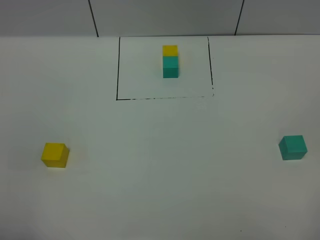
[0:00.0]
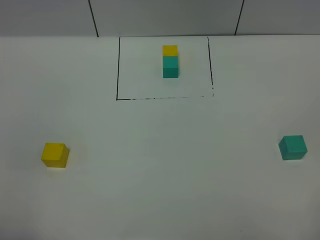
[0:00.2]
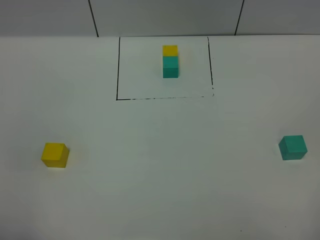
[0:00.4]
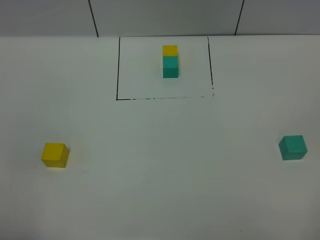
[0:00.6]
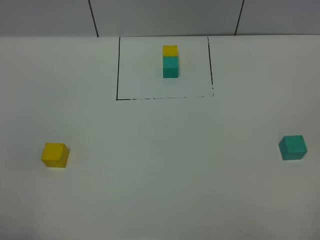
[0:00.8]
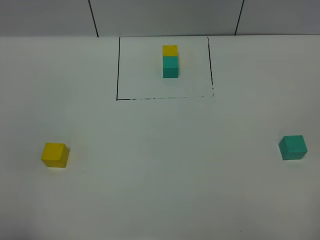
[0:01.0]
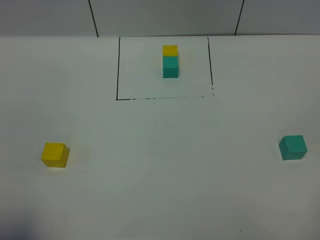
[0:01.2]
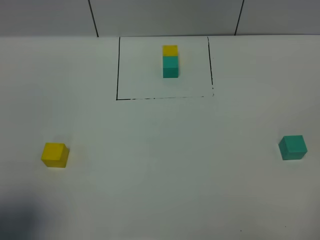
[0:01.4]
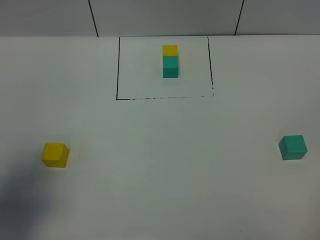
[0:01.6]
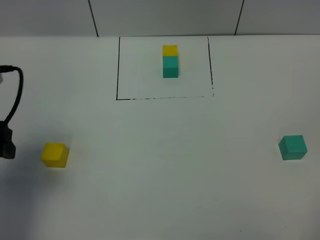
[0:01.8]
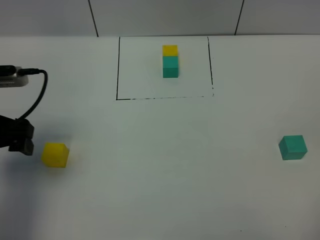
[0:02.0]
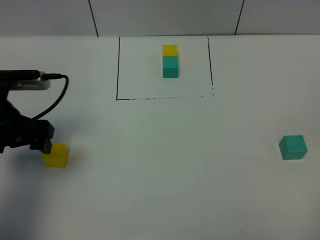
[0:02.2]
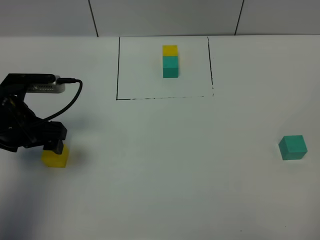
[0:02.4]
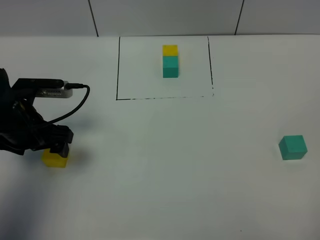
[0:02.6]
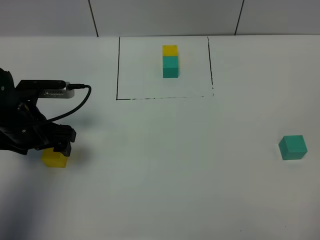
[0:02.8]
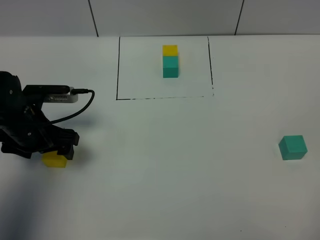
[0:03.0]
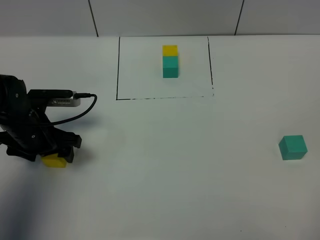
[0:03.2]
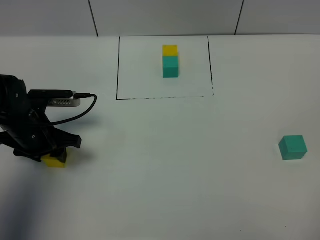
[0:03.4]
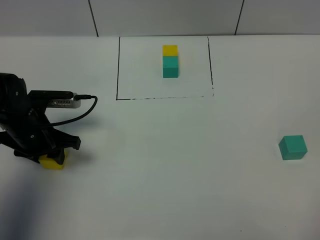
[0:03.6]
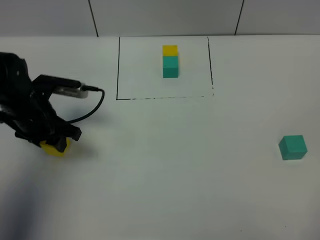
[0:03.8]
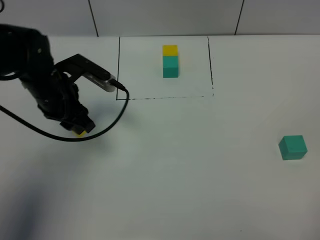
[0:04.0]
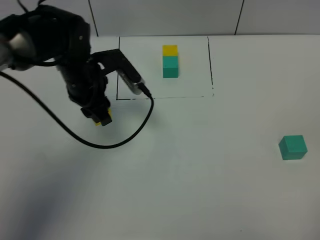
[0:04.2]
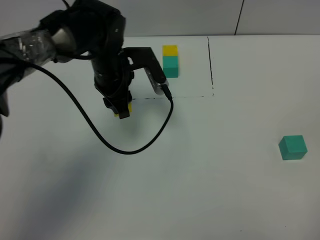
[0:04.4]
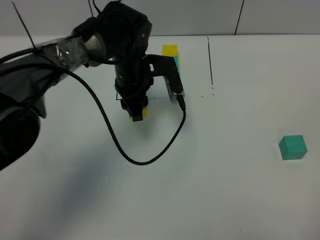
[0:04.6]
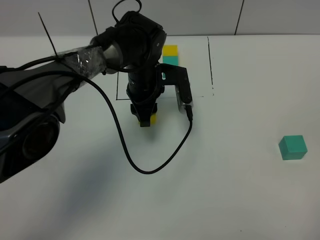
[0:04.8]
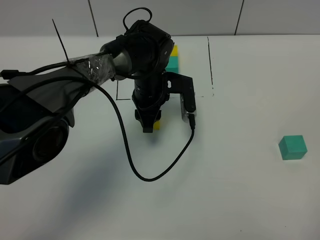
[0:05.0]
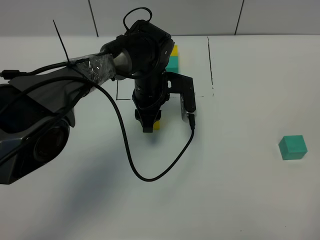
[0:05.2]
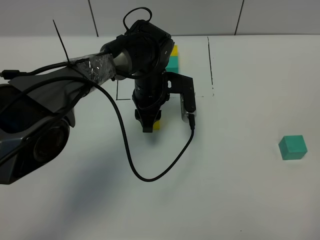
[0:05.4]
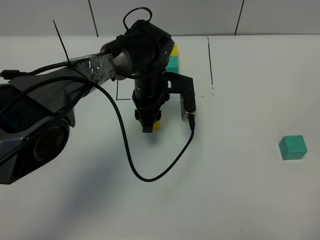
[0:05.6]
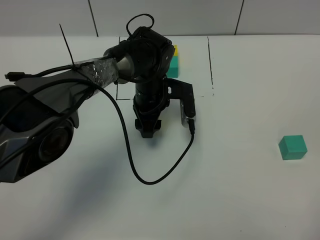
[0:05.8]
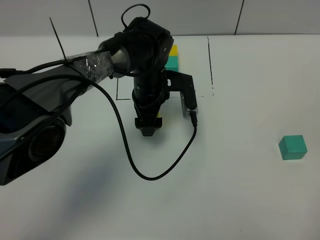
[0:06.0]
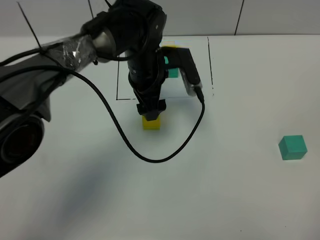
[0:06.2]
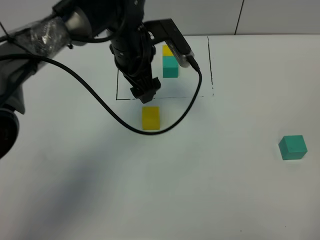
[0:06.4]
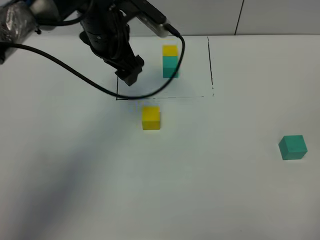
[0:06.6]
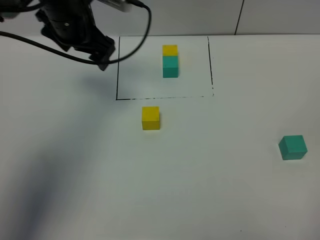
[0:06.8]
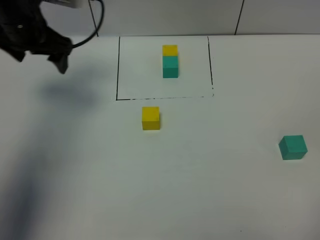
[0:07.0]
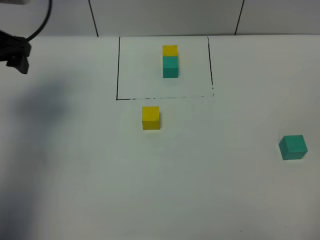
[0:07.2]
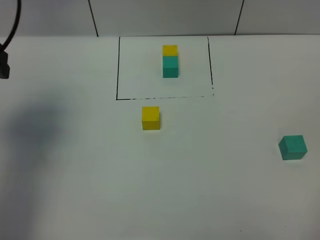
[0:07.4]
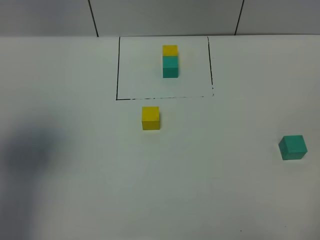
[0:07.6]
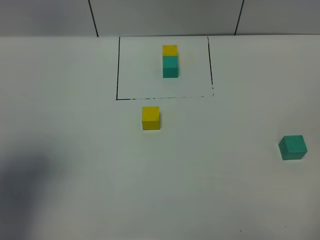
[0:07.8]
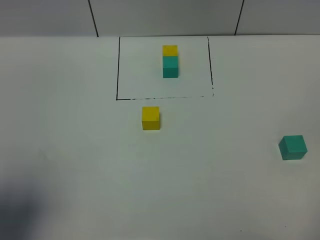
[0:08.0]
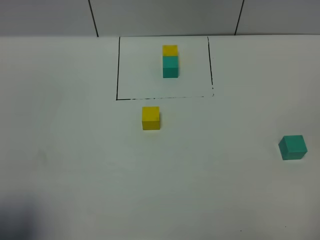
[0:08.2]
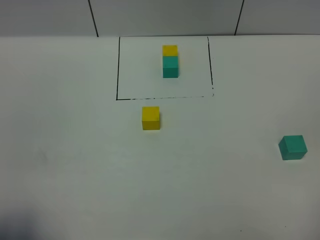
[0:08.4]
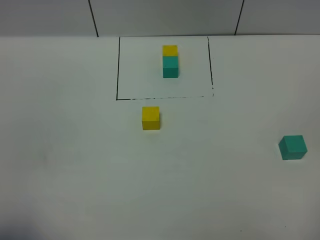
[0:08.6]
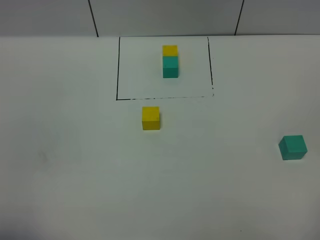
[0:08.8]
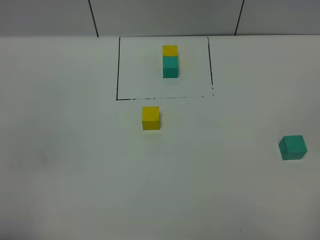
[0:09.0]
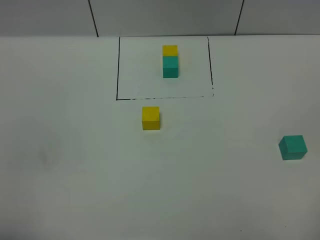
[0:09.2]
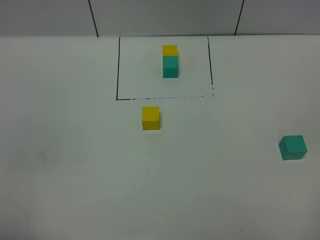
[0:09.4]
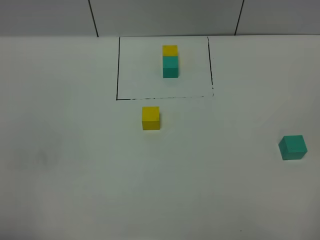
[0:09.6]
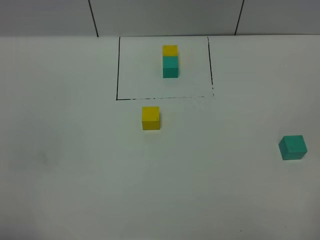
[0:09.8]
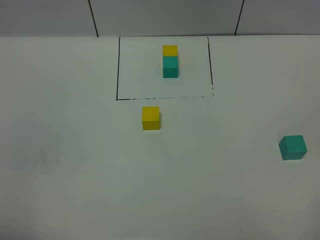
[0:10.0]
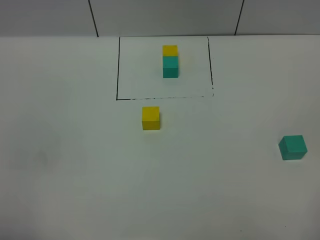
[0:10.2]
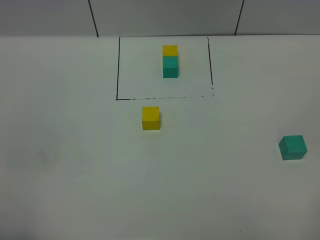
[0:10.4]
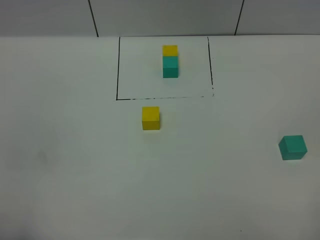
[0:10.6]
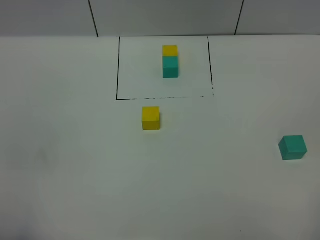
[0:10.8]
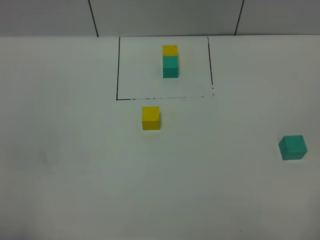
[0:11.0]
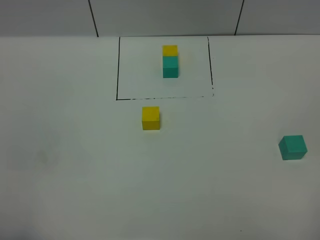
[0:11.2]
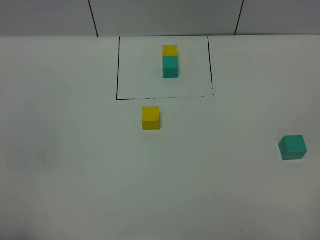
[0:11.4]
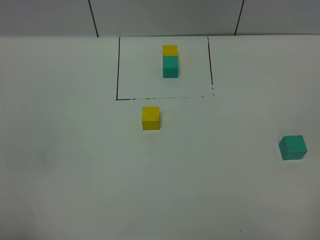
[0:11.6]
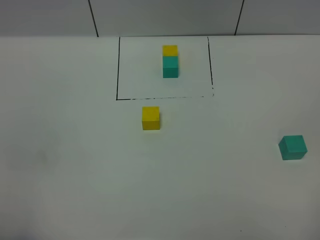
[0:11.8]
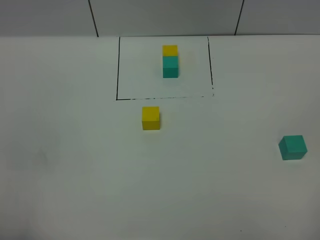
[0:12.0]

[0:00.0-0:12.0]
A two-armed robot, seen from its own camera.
Task of the whole recording: According to the building block template in front, assemble the scattered blocks together.
Step, 0:01.6 to 0:06.0: Put the yellow cube in the center of the table.
0:00.0 to 0:01.6: The left gripper goes approximately 15 cm forward.
0:01.6 to 0:03.0: The left gripper moves downward and forward, about 20 cm.
0:03.0 to 0:04.4: The left gripper heads to the right and forward, covering roughly 20 cm, and closes.
0:04.4 to 0:06.0: The left gripper goes about 5 cm to the right, and opens.
0:06.0 to 0:07.6: The left gripper shifts roughly 40 cm to the left, upward and backward.
0:07.6 to 0:09.0: The left gripper moves backward, approximately 20 cm.
0:10.4 to 0:12.0: Neither gripper changes place.

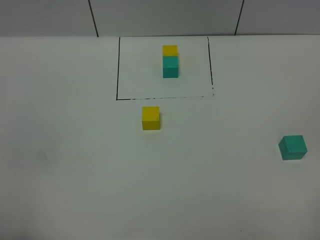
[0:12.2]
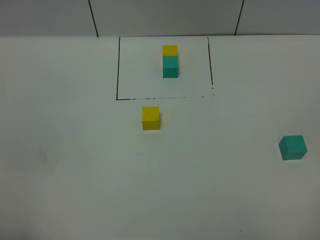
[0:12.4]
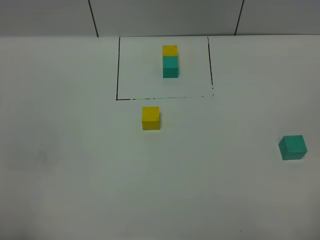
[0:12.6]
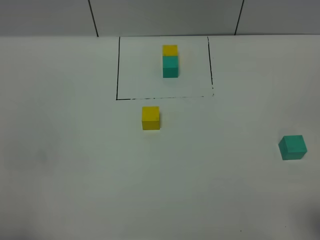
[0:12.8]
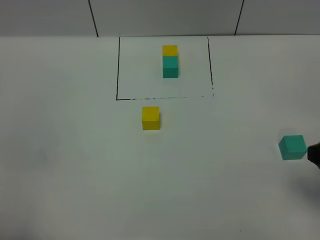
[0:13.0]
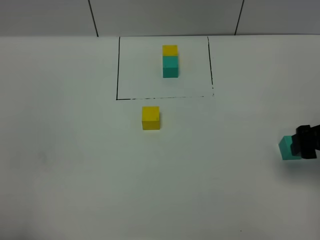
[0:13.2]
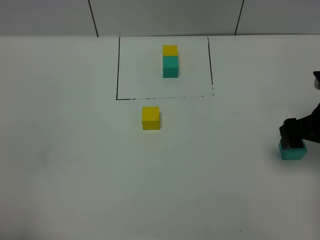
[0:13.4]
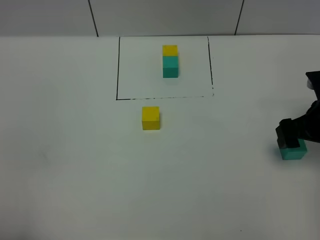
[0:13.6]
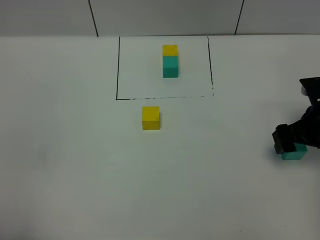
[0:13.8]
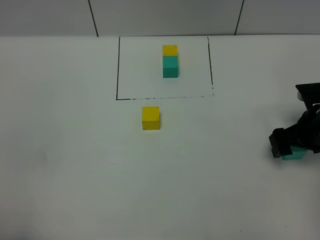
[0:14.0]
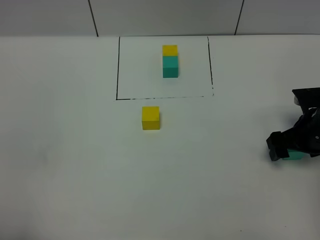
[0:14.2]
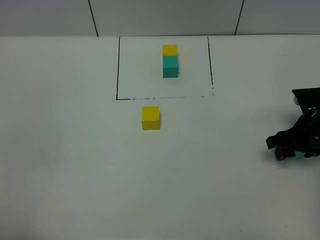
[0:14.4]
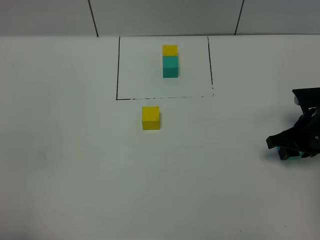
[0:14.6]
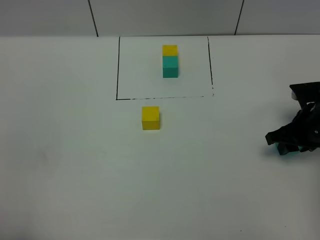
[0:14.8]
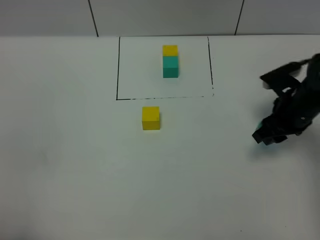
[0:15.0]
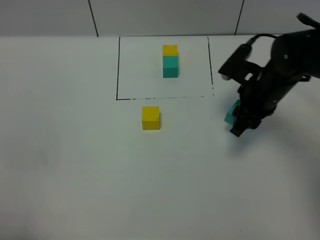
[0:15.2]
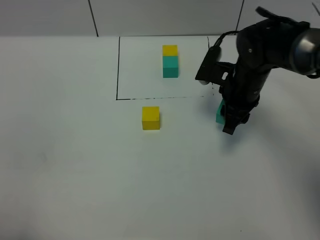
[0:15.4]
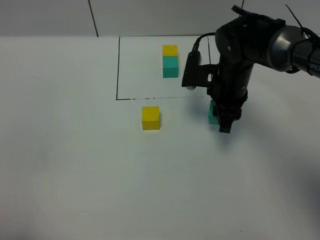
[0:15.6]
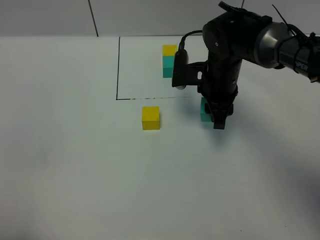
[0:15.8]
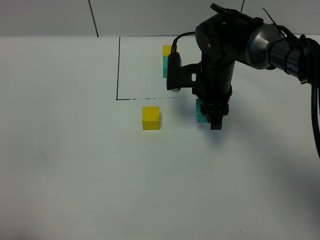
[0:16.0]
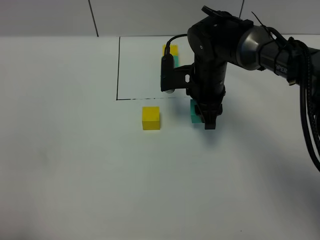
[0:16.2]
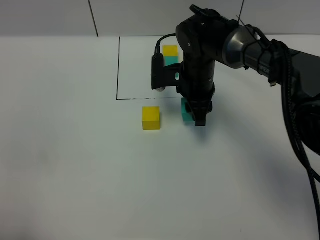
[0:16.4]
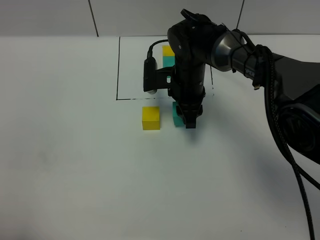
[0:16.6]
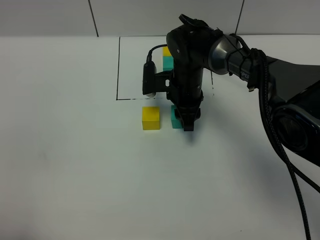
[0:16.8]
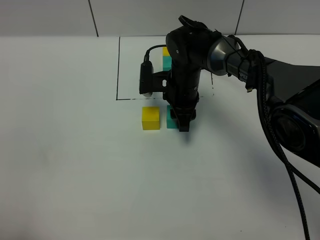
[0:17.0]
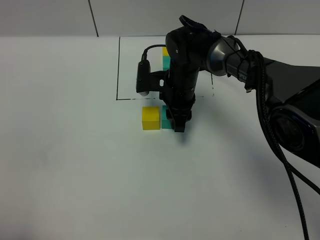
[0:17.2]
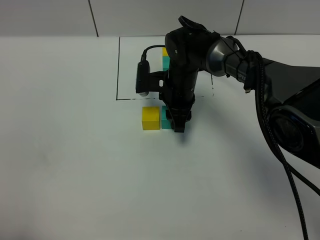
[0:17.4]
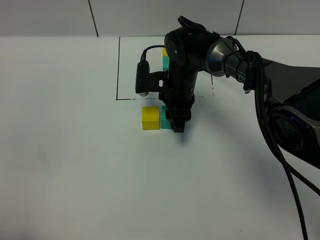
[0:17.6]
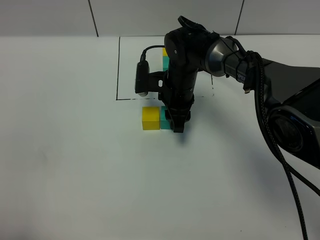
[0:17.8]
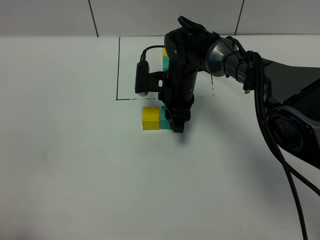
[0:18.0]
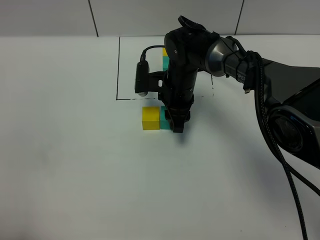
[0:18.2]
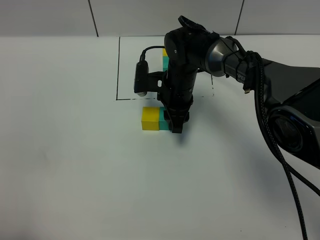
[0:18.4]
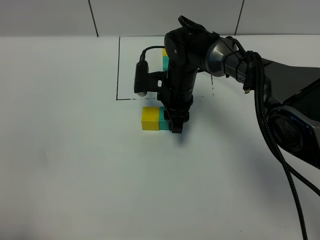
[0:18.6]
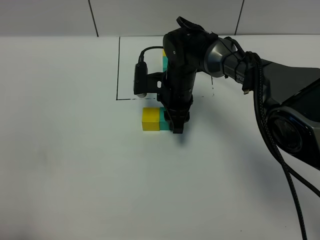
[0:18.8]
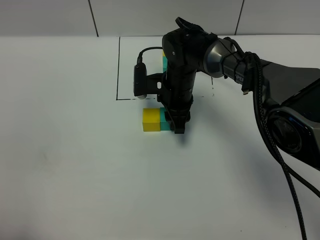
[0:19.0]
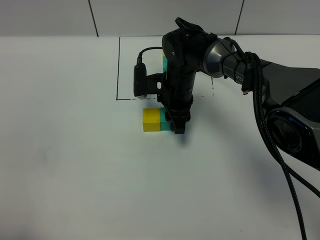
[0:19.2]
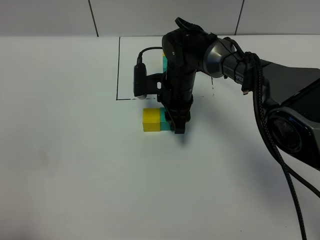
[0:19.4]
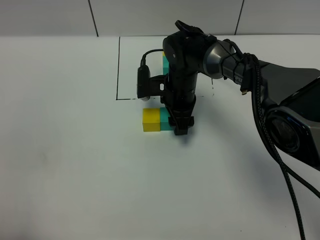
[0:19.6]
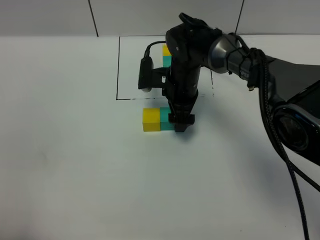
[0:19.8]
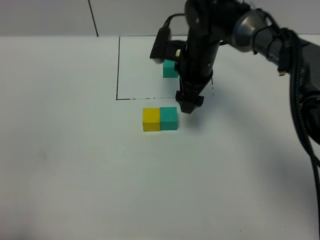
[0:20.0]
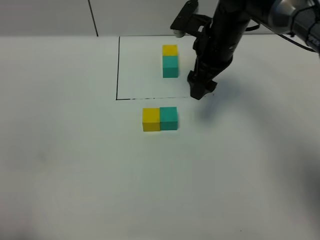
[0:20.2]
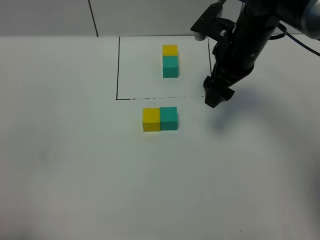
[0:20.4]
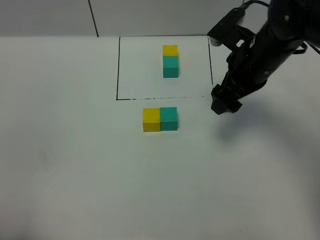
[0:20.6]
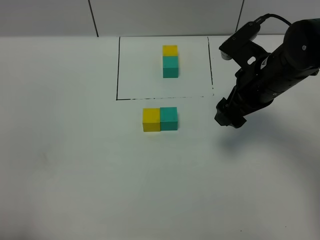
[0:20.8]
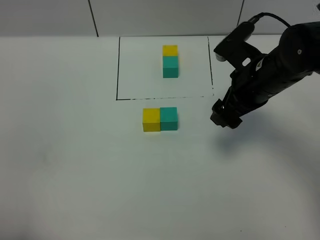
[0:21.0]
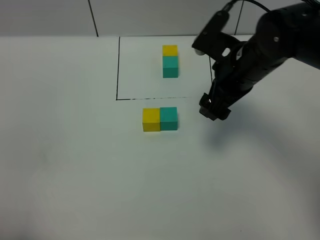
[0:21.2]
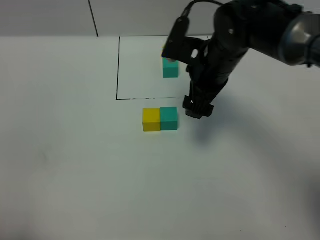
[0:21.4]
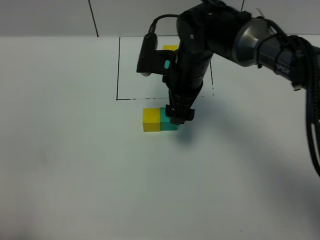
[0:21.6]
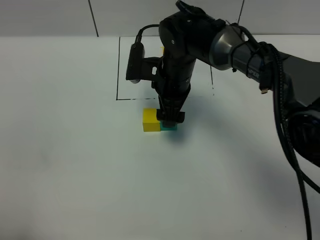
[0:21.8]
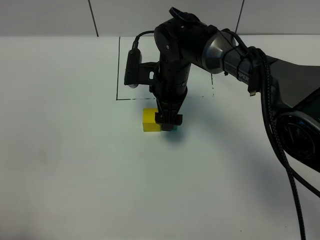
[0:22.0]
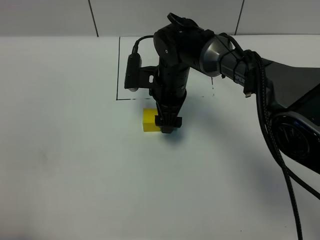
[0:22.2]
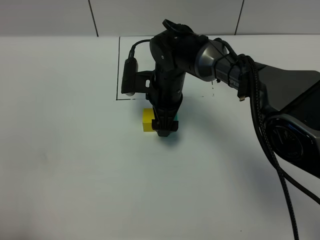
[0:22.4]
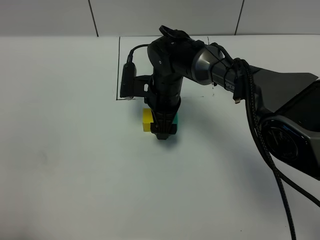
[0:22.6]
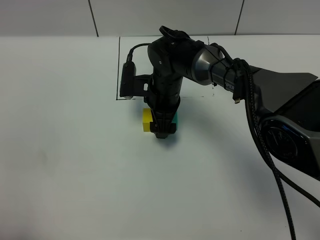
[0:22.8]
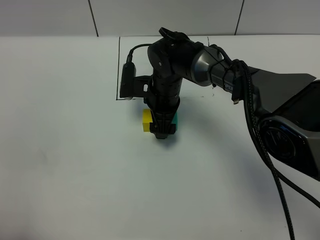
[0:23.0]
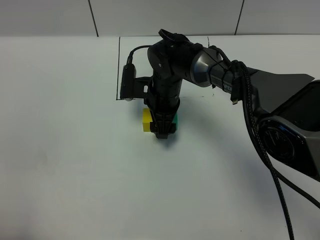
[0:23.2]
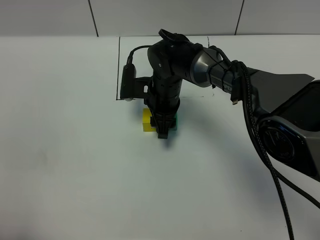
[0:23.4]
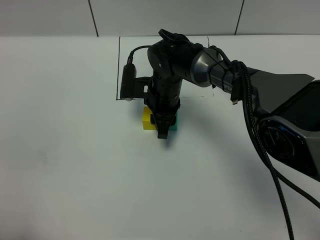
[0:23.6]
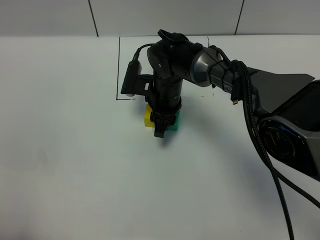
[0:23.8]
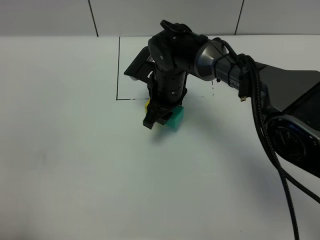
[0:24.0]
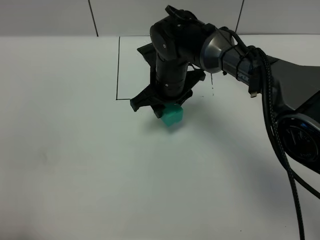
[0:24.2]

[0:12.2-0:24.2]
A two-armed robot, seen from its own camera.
Task of the whole recording: According to the building block template in front, assemble the scattered blocks together.
Step, 0:12.2 to 0:19.8: Put the green cube on the right of the yellow cube.
0:12.2 to 0:13.8: The right gripper shifts roughly 30 cm forward and downward.
0:13.8 to 0:15.2: The right gripper travels to the left and forward by approximately 15 cm, and closes.
0:15.2 to 0:16.6: The right gripper heads to the left and forward, covering about 15 cm.
0:16.6 to 0:18.2: There are only small adjustments of the grippers.
0:18.2 to 0:19.8: The right gripper opens up.
0:19.8 to 0:21.2: The right gripper is displaced upward, to the right and backward by roughly 15 cm.
0:21.2 to 0:22.6: The right gripper travels to the left, downward and forward by about 20 cm.
0:22.6 to 0:24.2: The right gripper closes.
